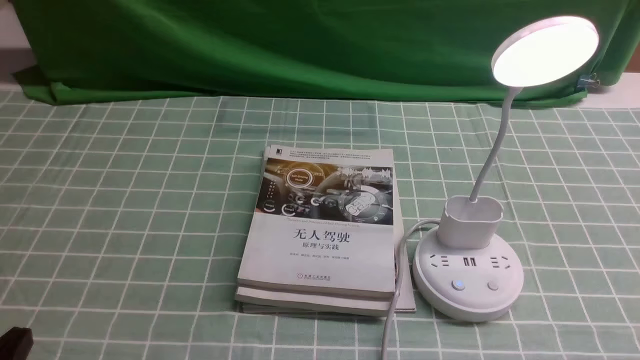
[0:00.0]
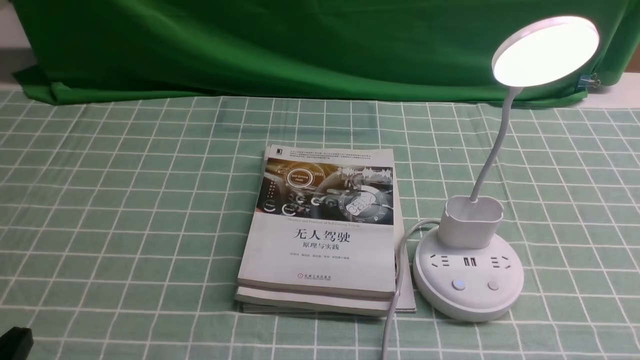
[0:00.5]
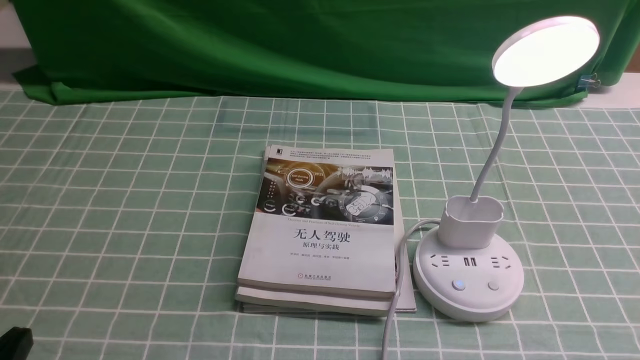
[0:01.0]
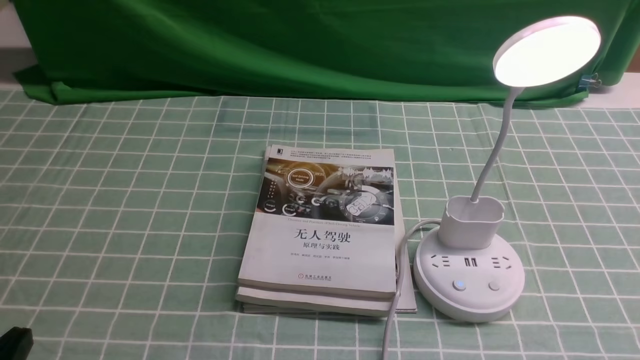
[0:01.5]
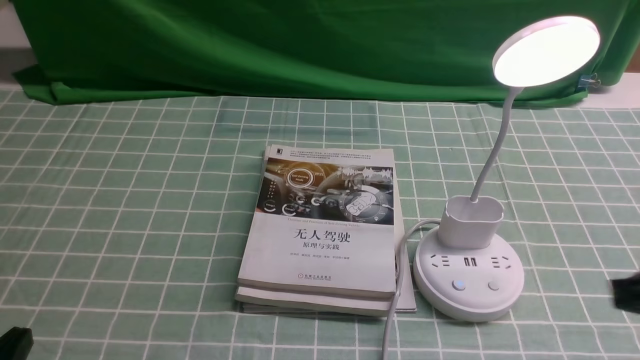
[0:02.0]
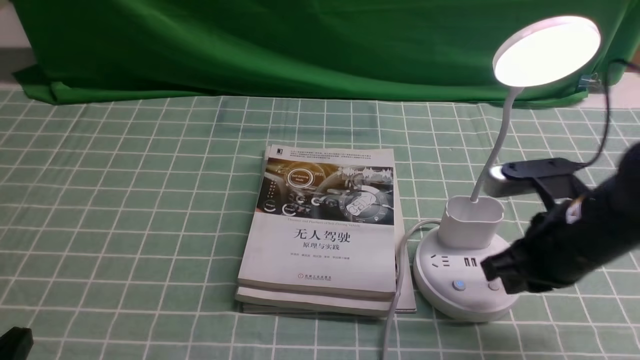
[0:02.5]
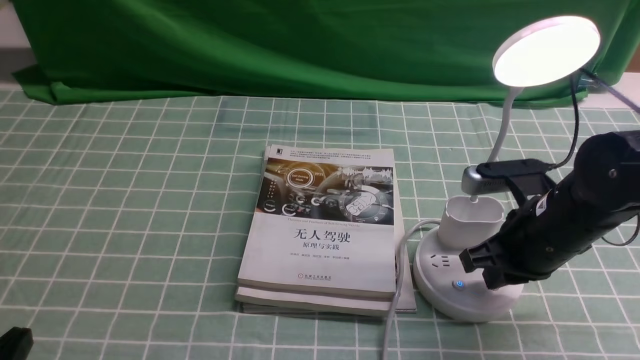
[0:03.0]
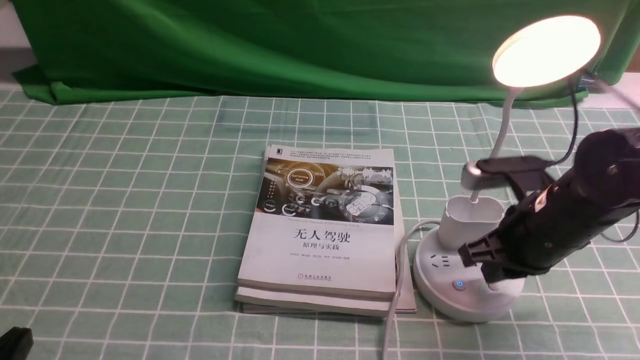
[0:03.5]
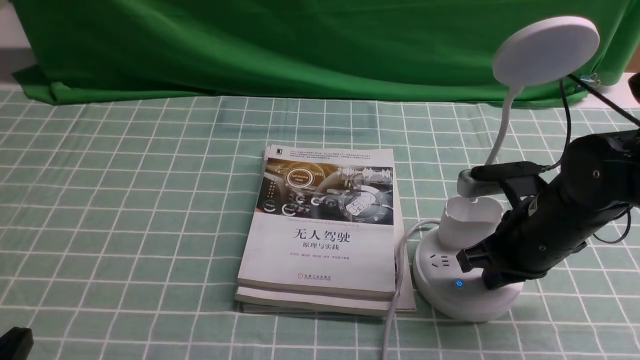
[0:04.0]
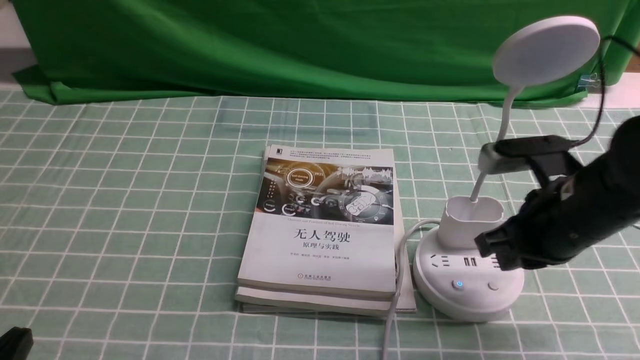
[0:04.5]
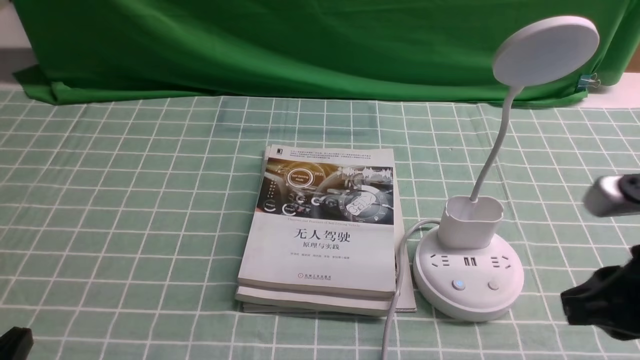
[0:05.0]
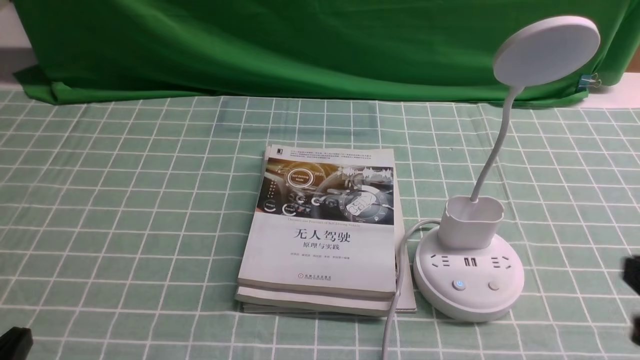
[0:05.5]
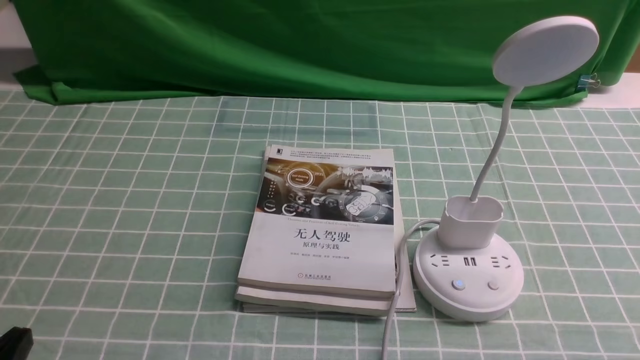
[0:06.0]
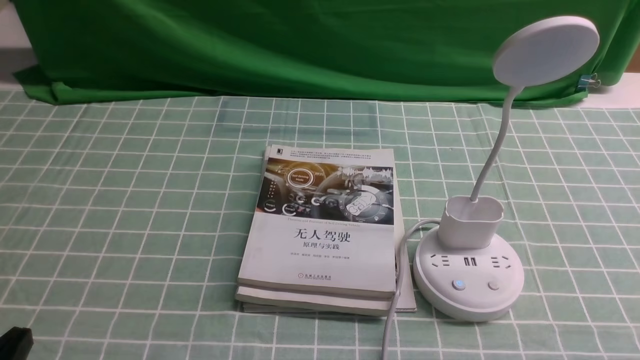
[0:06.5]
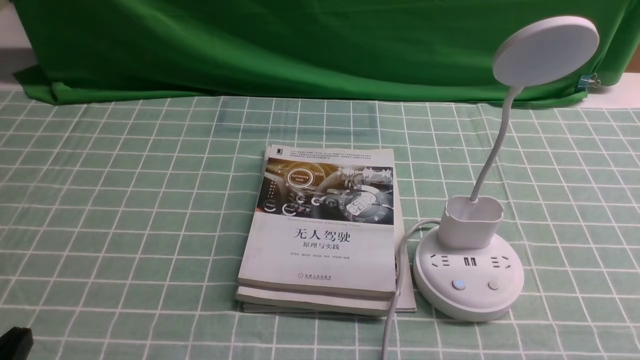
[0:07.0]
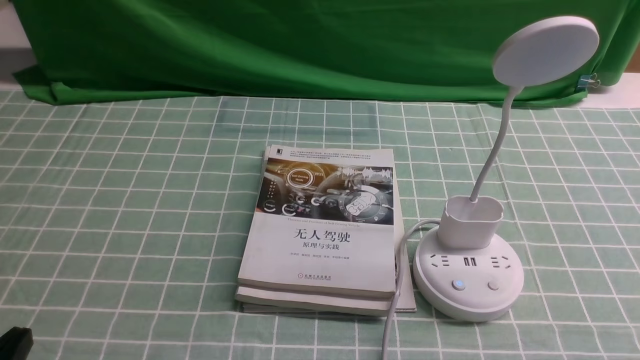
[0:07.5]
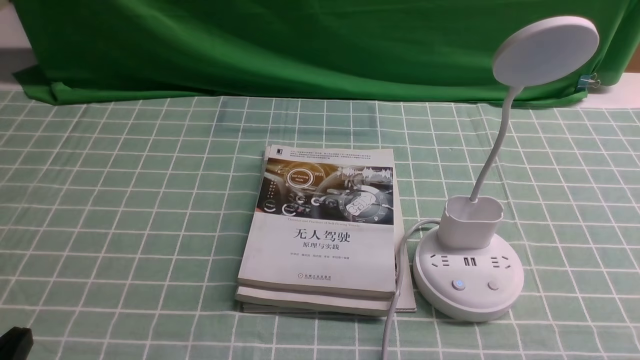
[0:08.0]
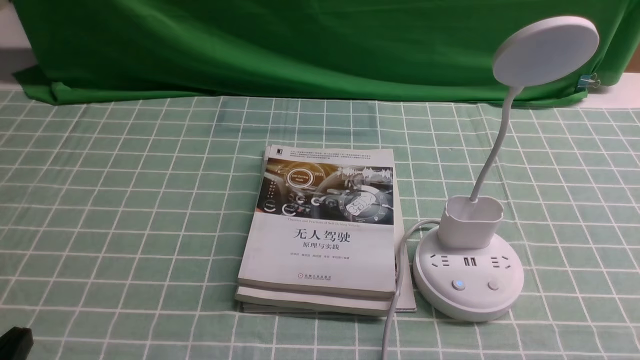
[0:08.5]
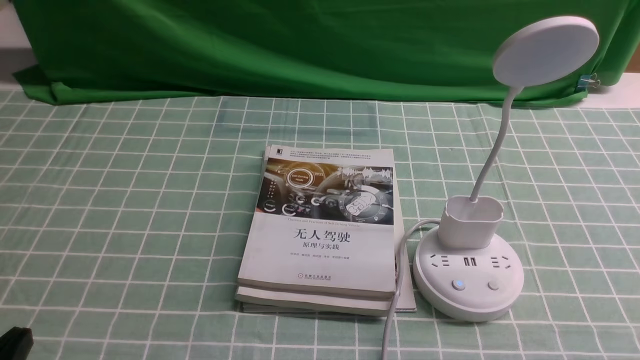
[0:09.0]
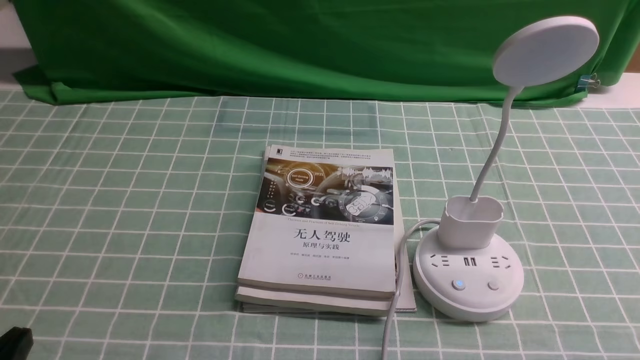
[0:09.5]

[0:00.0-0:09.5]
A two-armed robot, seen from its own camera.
Task of the whole recording: turn off the desk lamp on the blue coffee tablecloth by hand.
Step, 0:00.0 to 0:04.0: use the right arm to press the button switch on the lamp holder.
0:00.0 to 0:02.0: The right gripper moves forward and upward, roughly 15 cm, and closes.
0:02.0 to 0:04.0: The right gripper heads forward, downward and to the left, covering about 15 cm.
0:04.0 to 0:05.5: The right gripper moves backward and to the right, roughly 20 cm.

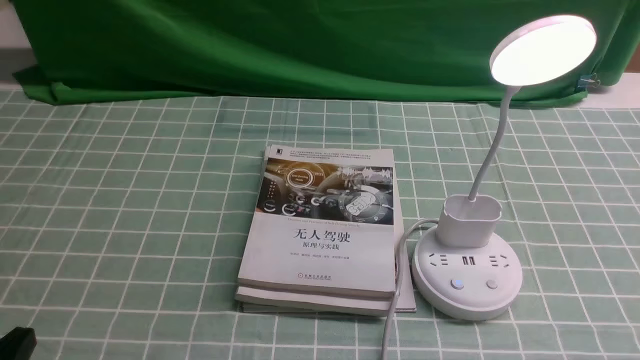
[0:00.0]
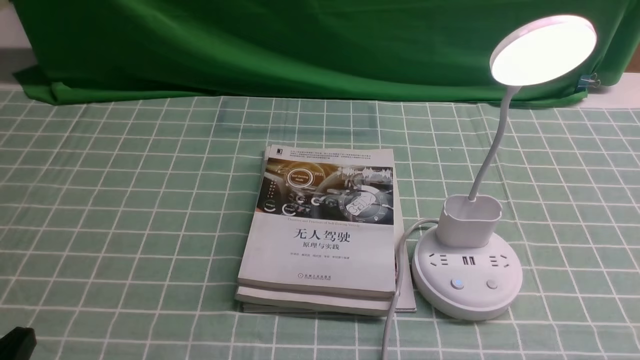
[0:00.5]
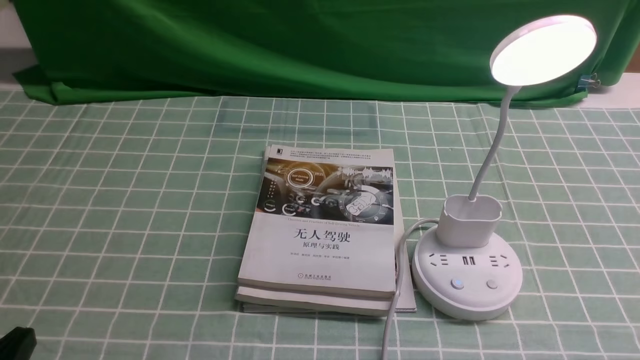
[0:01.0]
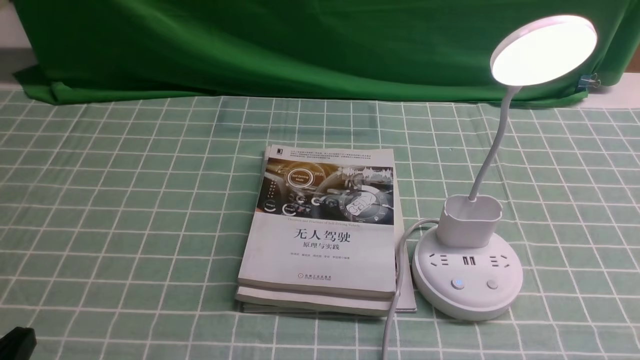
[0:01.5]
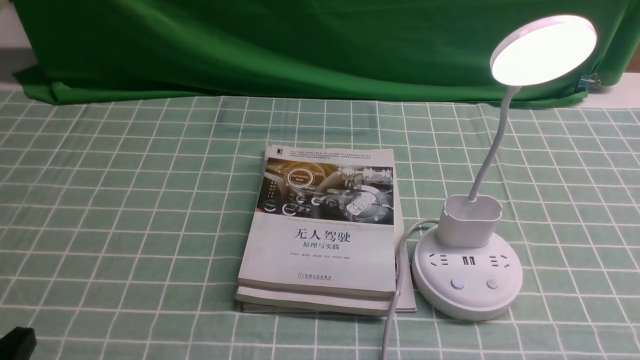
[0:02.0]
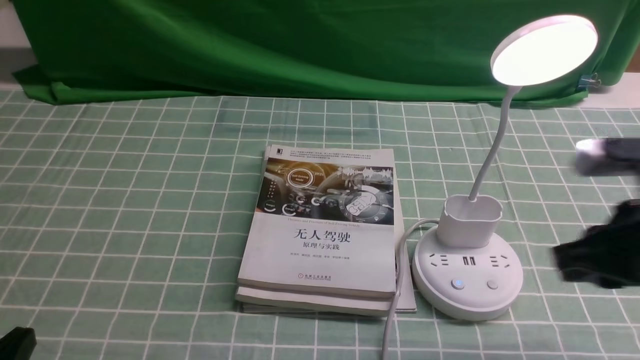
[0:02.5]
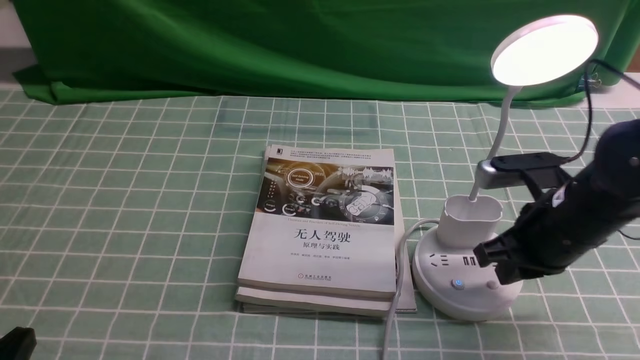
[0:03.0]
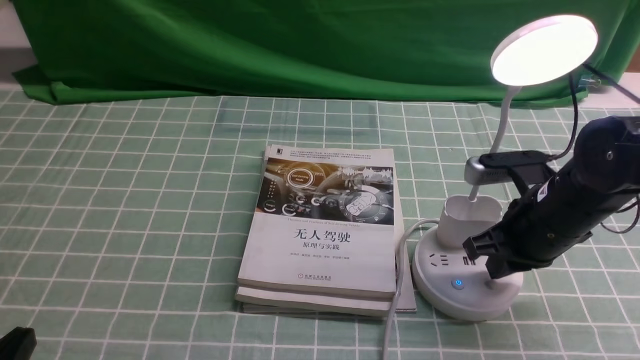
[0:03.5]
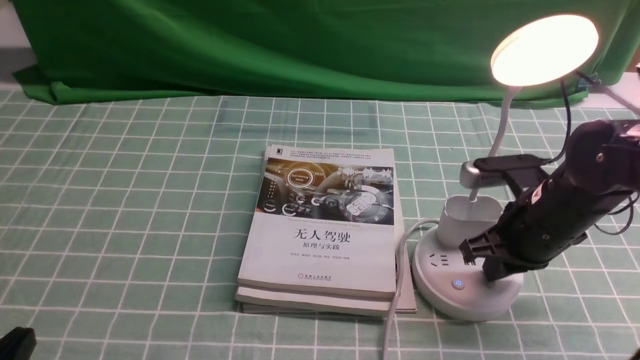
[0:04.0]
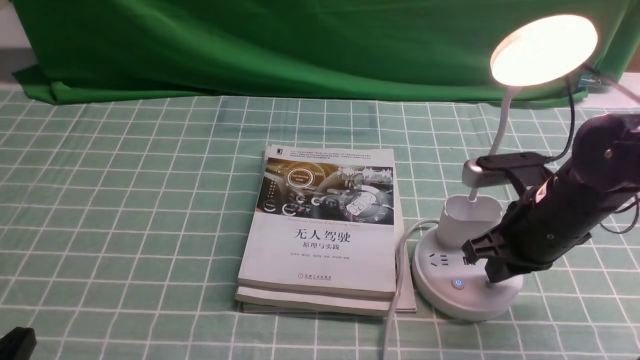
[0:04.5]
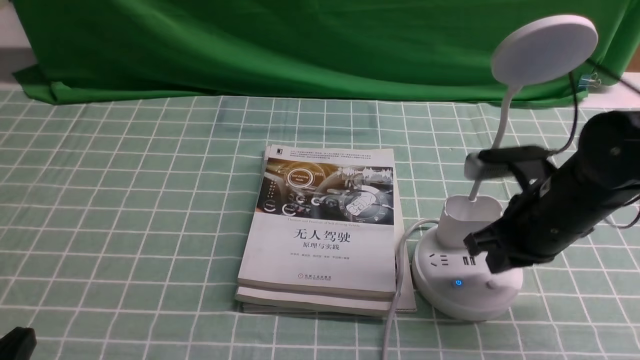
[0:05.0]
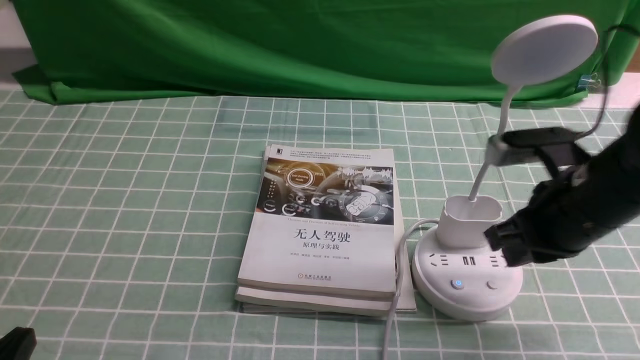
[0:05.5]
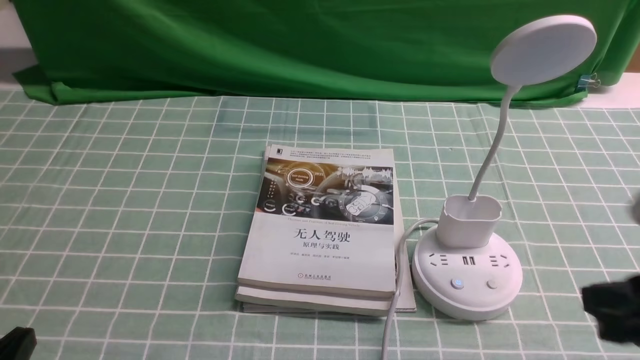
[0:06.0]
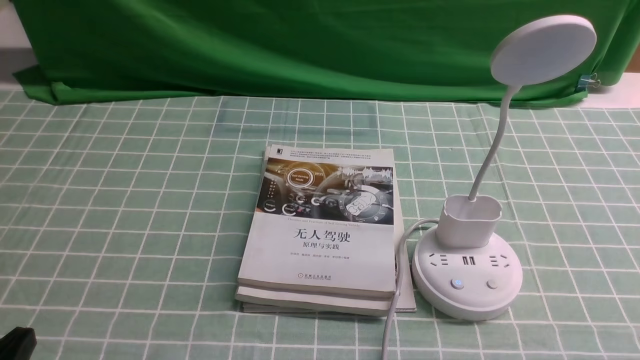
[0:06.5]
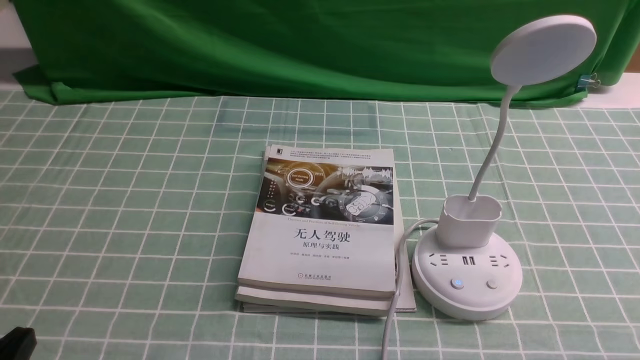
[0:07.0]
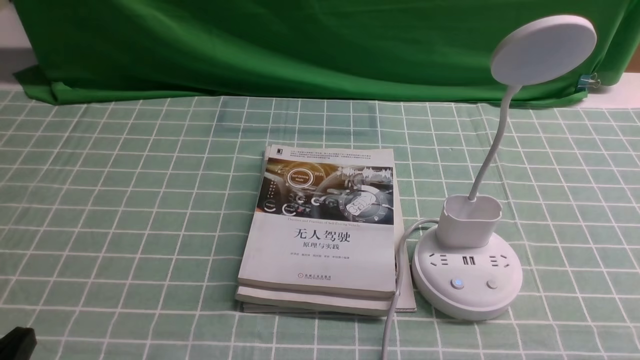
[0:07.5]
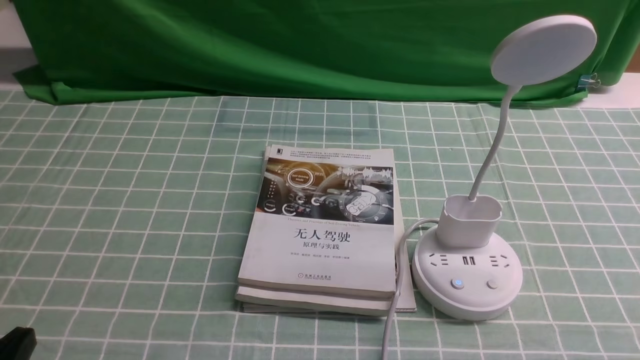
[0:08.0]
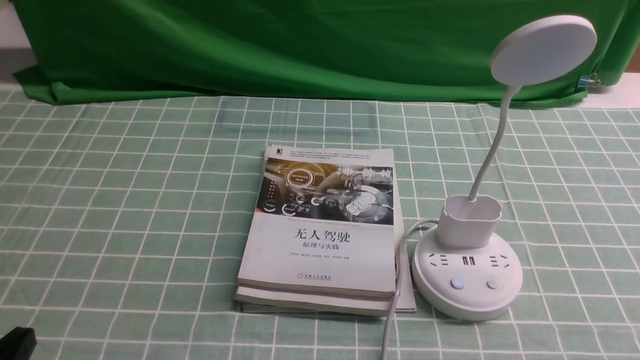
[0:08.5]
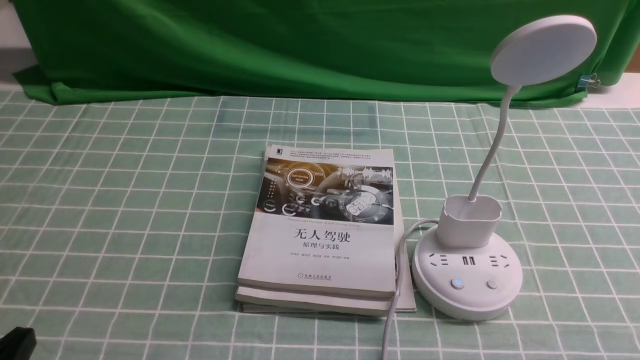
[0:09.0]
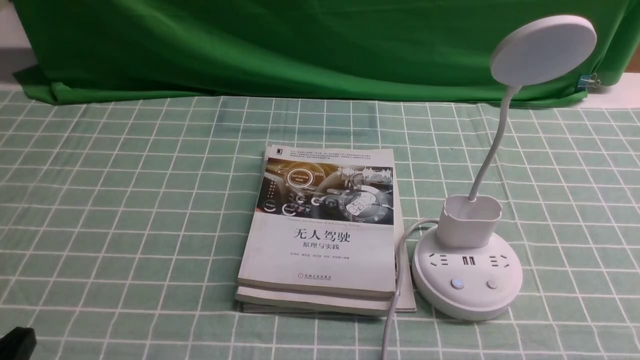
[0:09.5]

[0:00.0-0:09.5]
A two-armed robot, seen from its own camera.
Task of the whole recording: turn off the desk lamp on the blue coffee tablecloth by hand.
Step, 0:00.0 to 0:05.0: use the right arm to press the button switch on the lamp holder.
0:02.0 to 0:04.0: The right gripper is displaced forward and downward by about 25 cm.
0:04.0 to 0:05.5: The right gripper changes place by some 5 cm.
0:05.5 to 0:07.5: The right gripper shifts about 25 cm backward and to the right.
